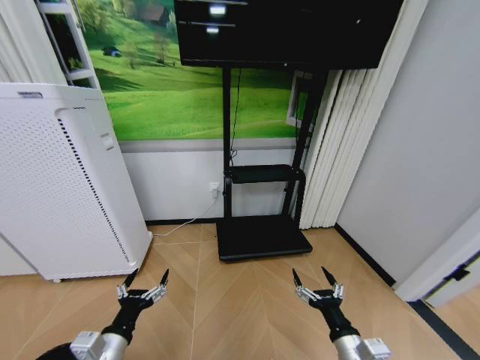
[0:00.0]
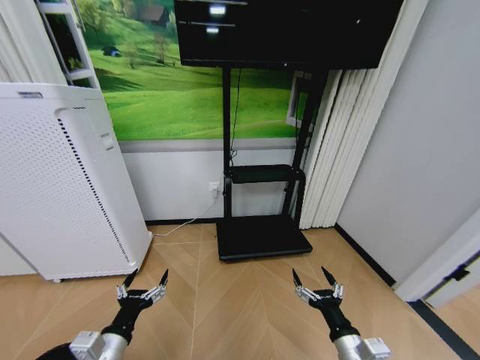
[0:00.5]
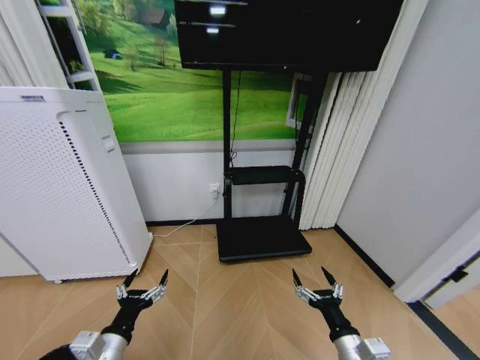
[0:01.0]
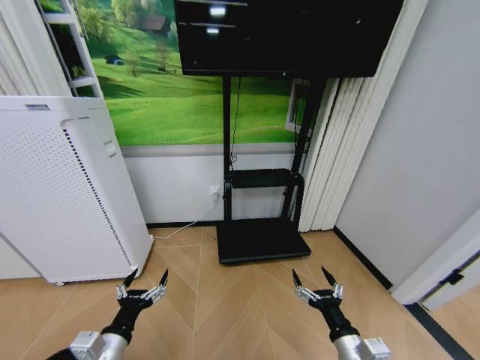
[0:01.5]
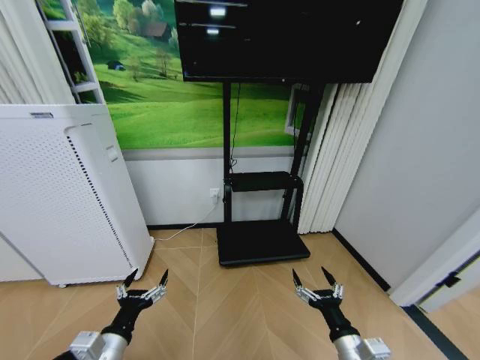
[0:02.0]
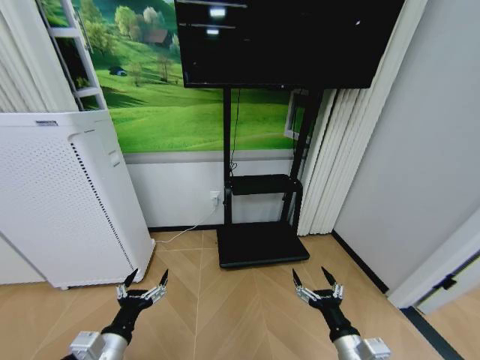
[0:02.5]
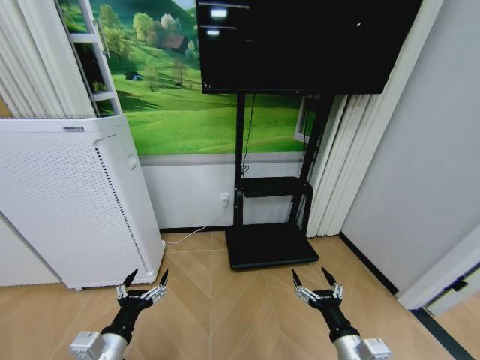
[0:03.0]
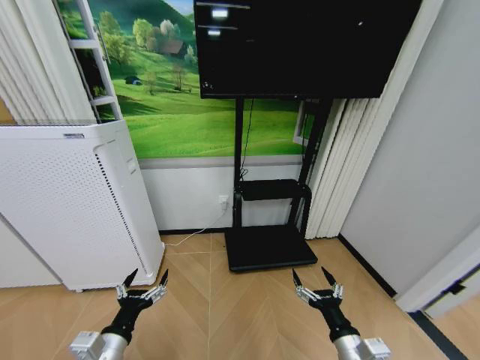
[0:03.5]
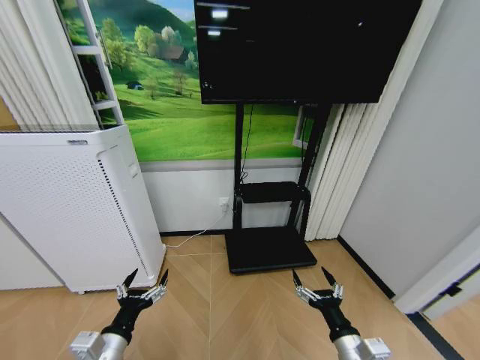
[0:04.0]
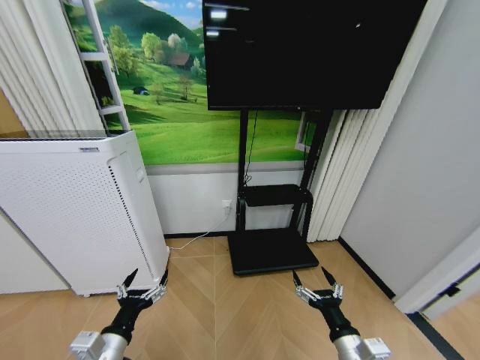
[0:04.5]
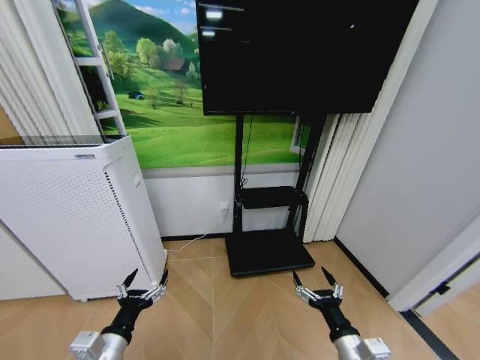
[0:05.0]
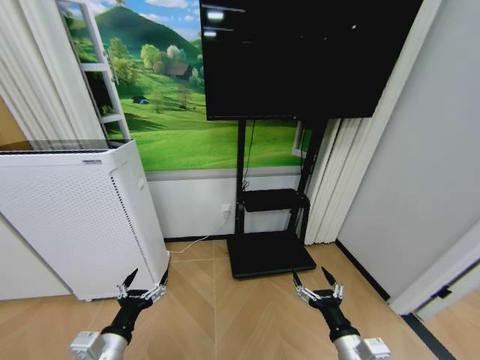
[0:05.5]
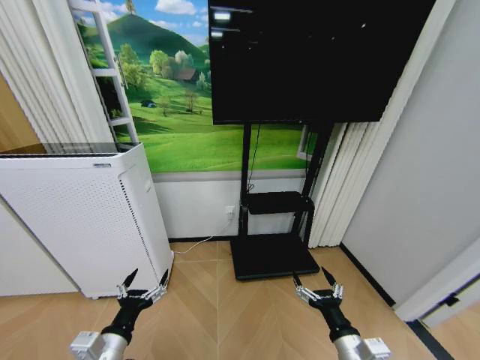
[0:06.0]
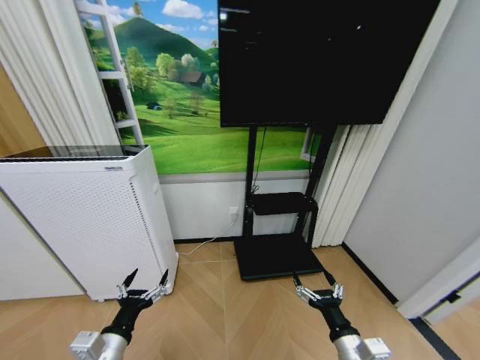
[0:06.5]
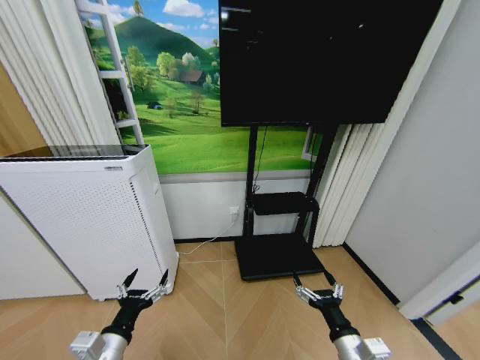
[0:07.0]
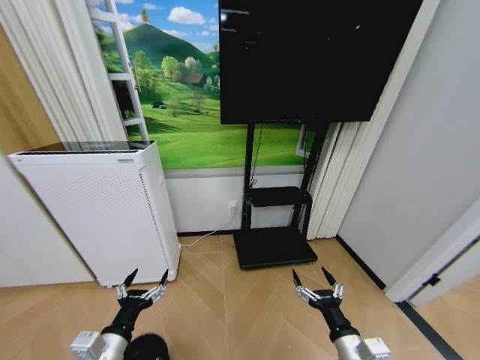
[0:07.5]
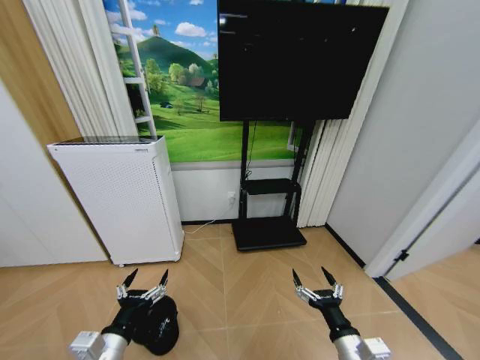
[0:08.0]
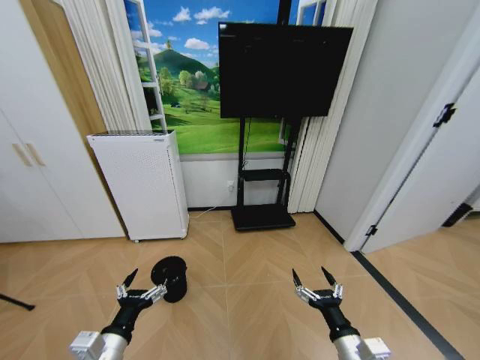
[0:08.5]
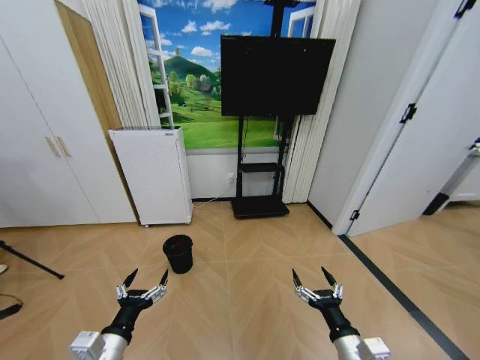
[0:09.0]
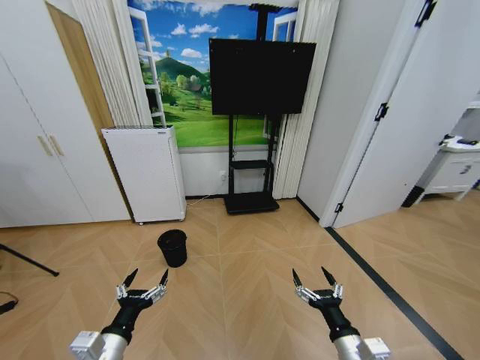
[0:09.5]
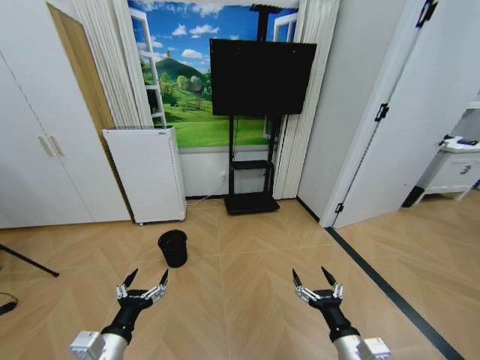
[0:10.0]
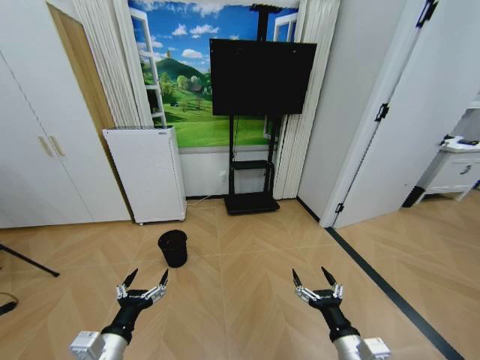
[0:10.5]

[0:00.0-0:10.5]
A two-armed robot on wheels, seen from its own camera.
Task of the whole recording: Pick up the trash bin and place the garbage on the floor into it.
0:00.0 to 0:02.0: Neither gripper changes place.
